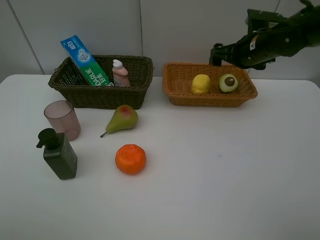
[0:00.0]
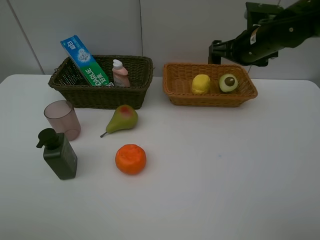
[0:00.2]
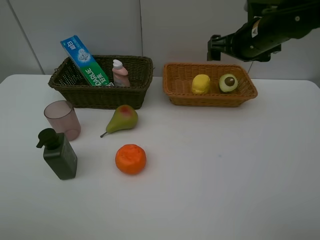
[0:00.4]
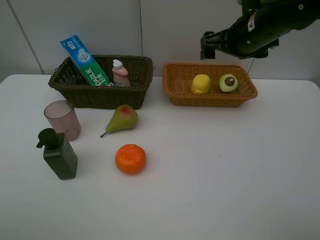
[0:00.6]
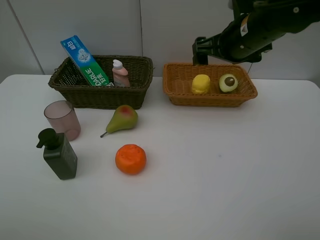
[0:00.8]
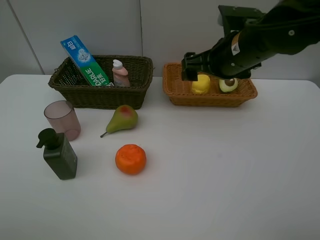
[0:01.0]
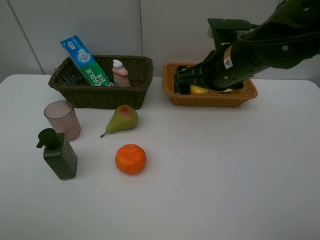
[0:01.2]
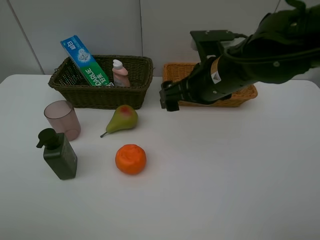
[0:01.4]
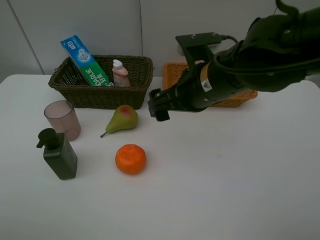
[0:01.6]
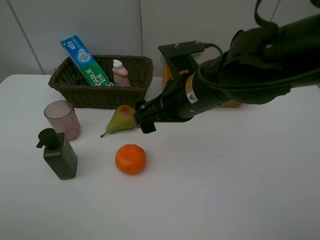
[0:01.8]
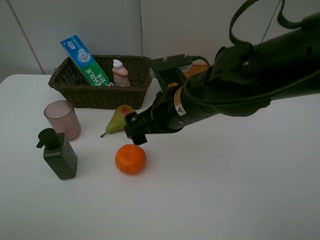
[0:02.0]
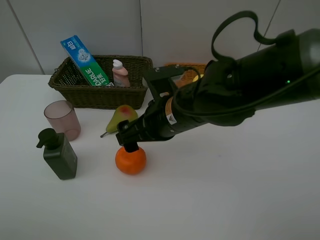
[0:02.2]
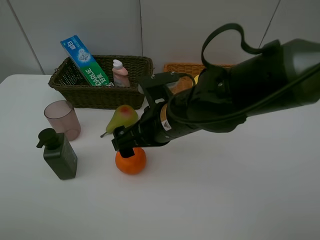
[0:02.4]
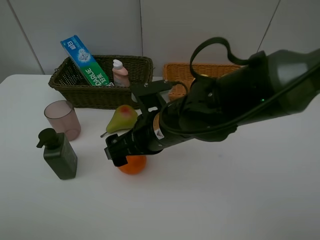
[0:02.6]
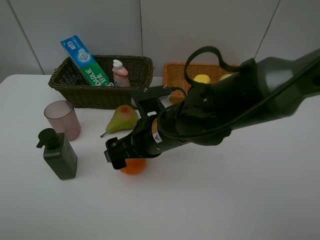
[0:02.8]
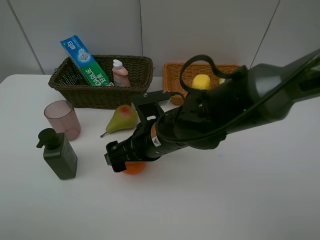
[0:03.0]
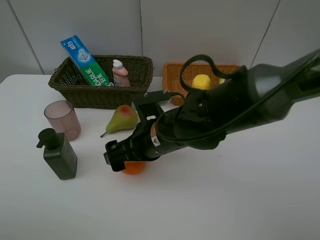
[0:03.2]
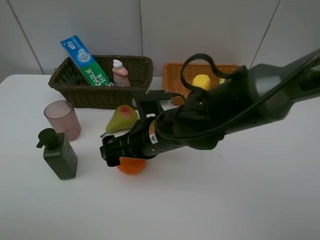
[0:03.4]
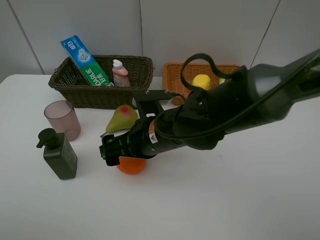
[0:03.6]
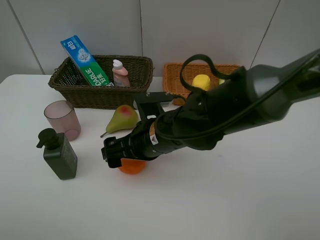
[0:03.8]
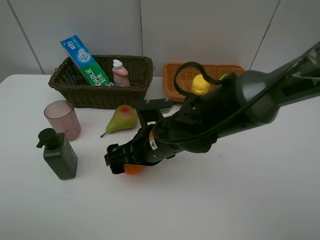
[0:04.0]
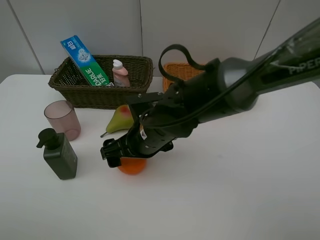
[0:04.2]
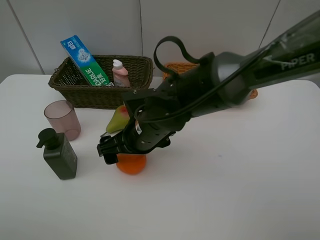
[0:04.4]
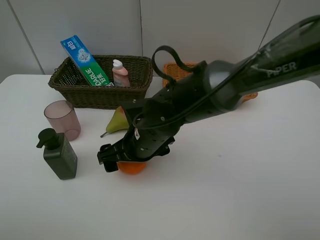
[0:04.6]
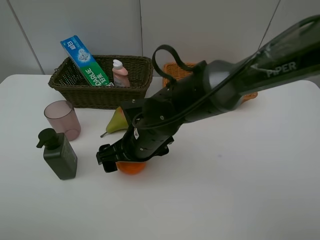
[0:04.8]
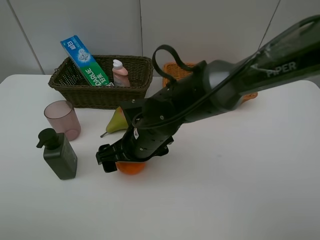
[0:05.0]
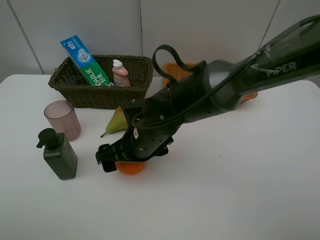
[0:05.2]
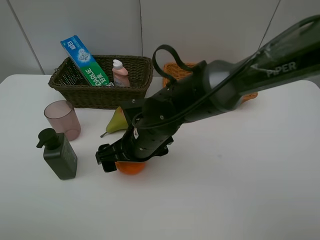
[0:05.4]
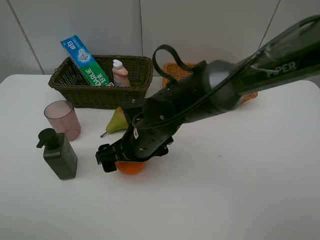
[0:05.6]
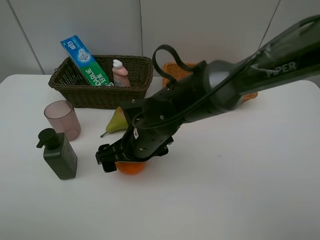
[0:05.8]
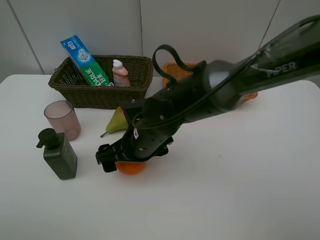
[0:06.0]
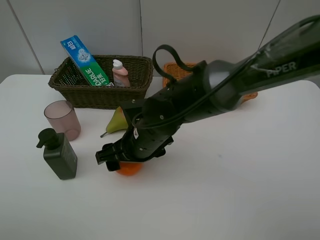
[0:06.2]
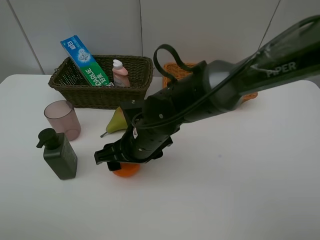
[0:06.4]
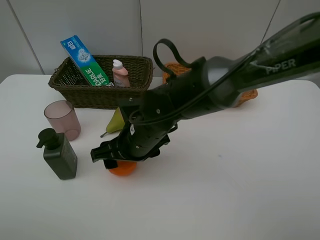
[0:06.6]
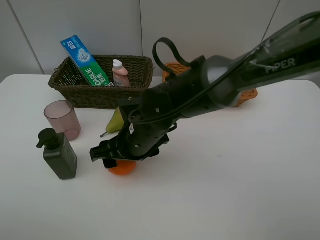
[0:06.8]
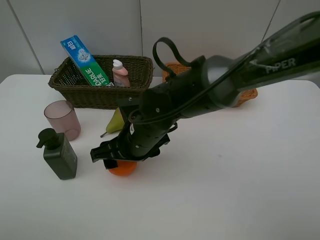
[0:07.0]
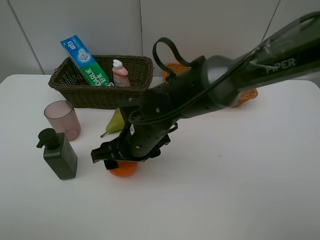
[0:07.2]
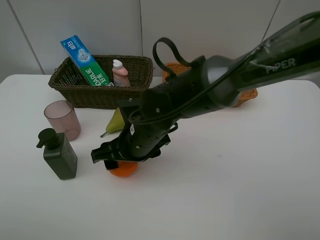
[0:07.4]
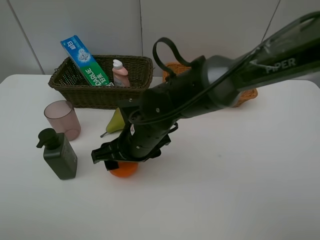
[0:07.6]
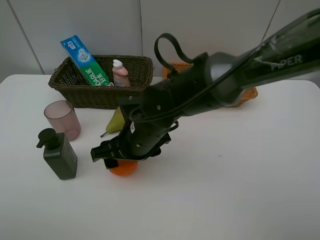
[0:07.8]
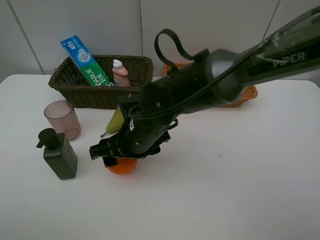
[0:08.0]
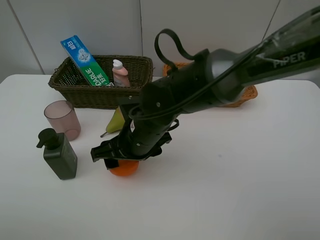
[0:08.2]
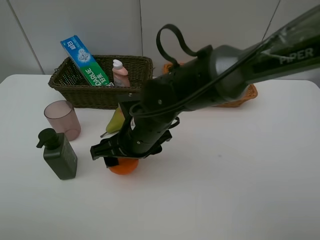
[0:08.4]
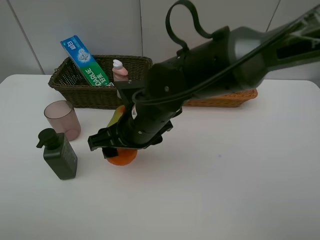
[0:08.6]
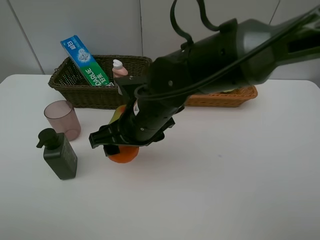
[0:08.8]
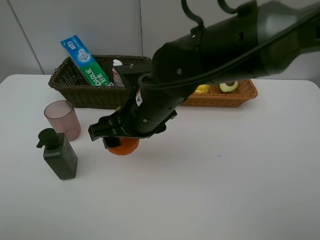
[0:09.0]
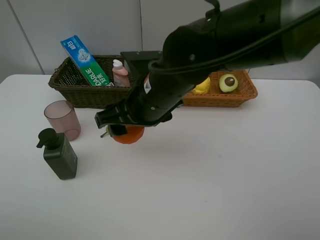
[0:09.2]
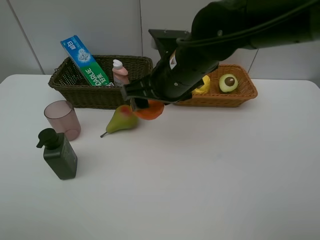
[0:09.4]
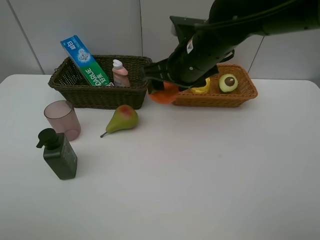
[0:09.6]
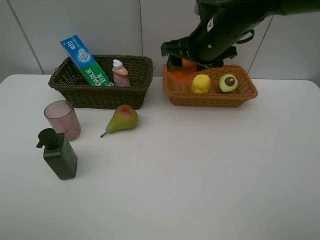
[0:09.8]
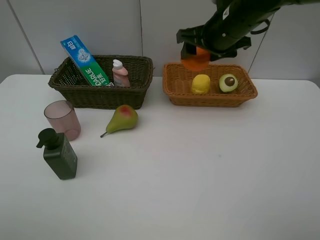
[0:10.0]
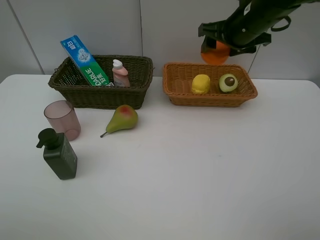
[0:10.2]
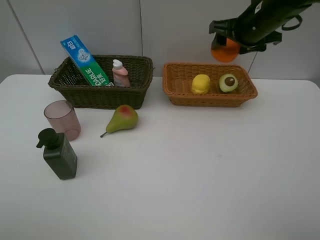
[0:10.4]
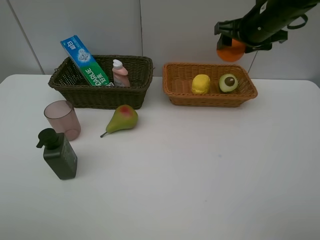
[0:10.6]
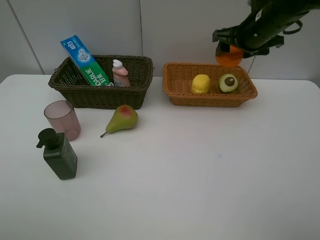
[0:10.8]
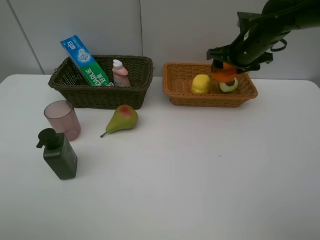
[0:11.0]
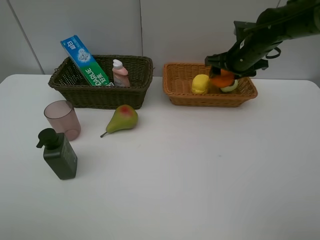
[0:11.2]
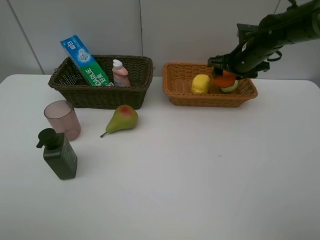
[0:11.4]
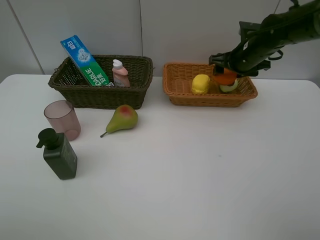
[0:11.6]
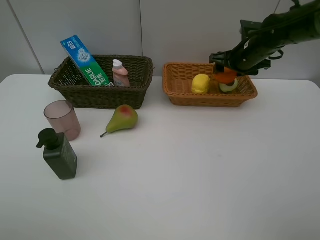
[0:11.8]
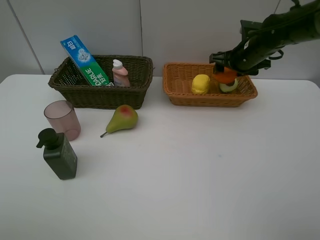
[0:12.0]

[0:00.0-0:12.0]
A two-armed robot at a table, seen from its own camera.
Task of the whole recording: Place multiple objects separately in different baskets.
Step, 0:00.0 to 0:08.4: Pick up the orange with right gripper.
0:00.0 to 0:01.6: The right gripper shifts roughly 20 cm backward and to the left.
0:01.6 to 0:03.0: The right gripper heads downward and to the left, covering approximately 10 cm.
0:03.0 to 0:06.0: There are only small adjustments of the grippers.
0:06.0 to 0:07.6: The right gripper closes.
0:07.6 to 0:09.0: The right gripper goes about 5 cm upward.
0:09.0 to 0:10.4: The right gripper moves to the right and forward, about 25 cm.
0:10.4 to 0:12.0: The right gripper moves downward, about 10 cm.

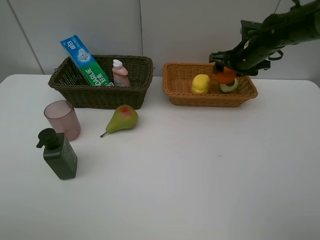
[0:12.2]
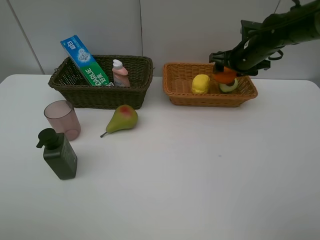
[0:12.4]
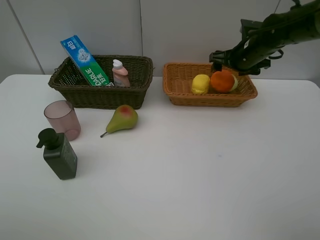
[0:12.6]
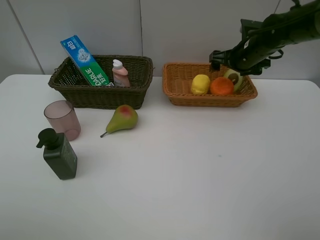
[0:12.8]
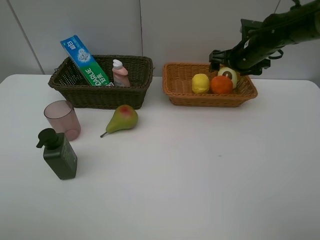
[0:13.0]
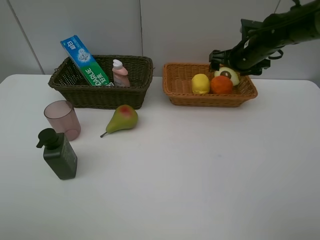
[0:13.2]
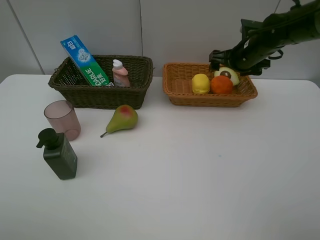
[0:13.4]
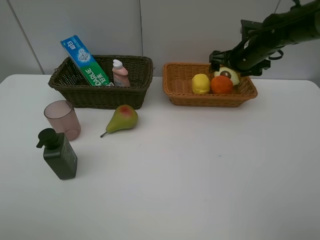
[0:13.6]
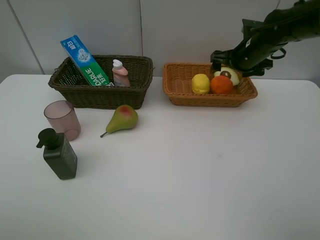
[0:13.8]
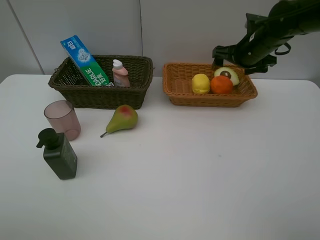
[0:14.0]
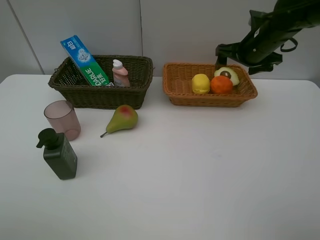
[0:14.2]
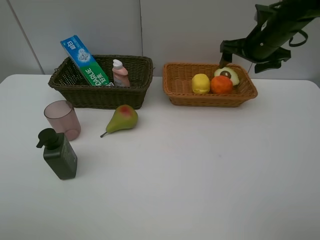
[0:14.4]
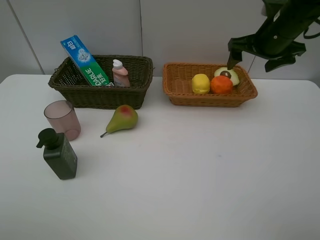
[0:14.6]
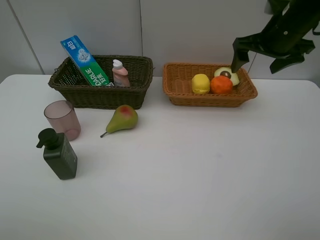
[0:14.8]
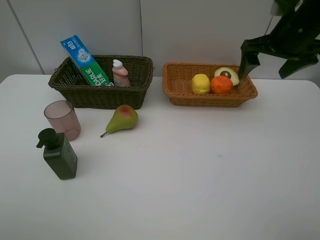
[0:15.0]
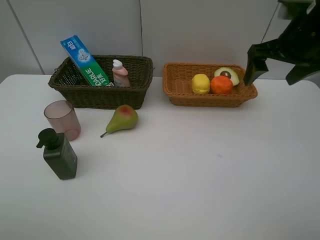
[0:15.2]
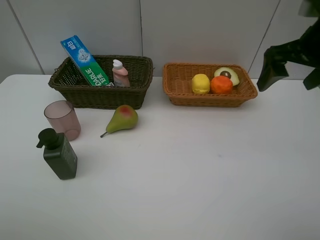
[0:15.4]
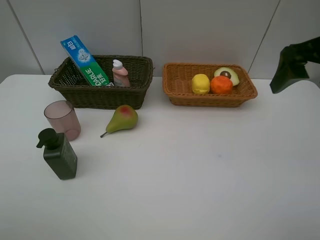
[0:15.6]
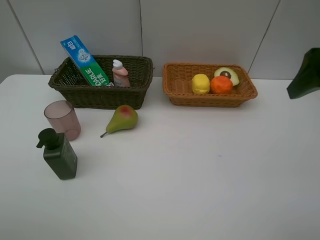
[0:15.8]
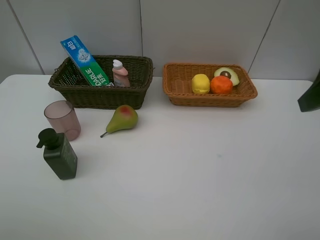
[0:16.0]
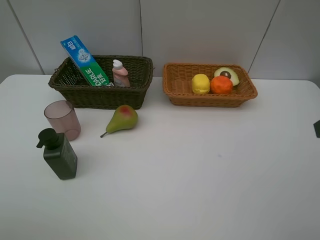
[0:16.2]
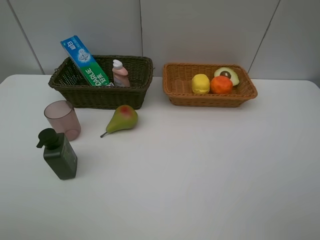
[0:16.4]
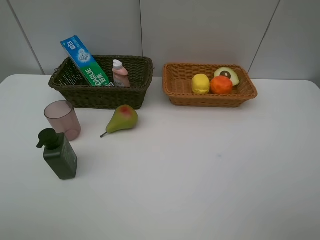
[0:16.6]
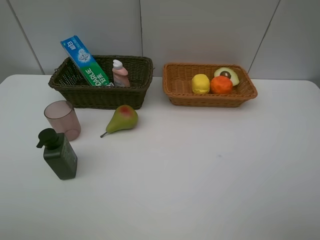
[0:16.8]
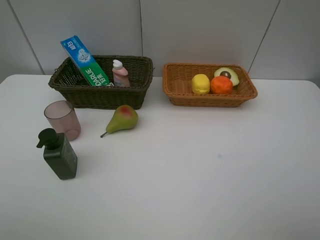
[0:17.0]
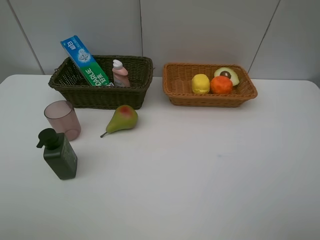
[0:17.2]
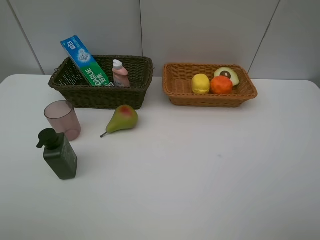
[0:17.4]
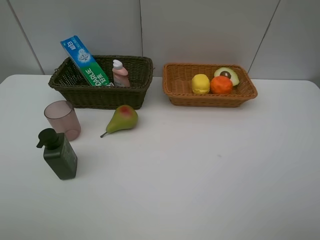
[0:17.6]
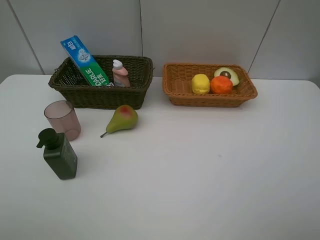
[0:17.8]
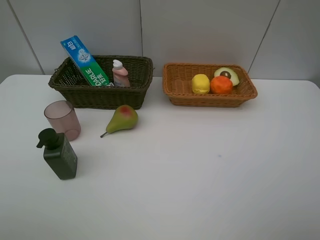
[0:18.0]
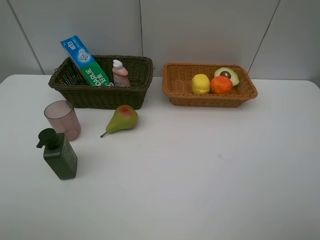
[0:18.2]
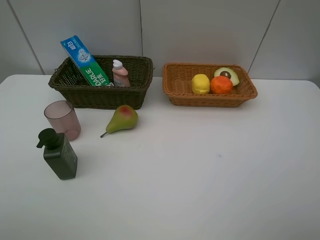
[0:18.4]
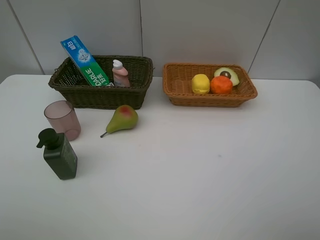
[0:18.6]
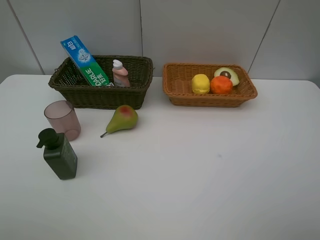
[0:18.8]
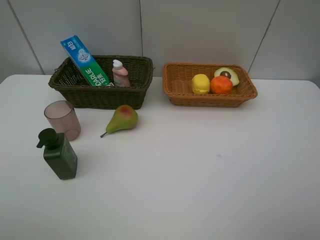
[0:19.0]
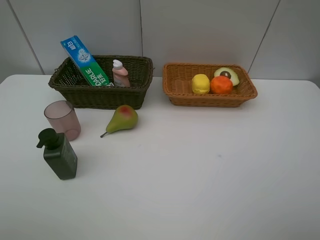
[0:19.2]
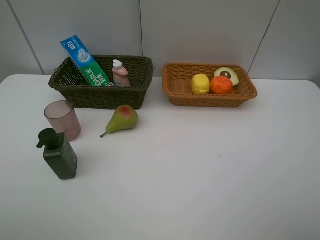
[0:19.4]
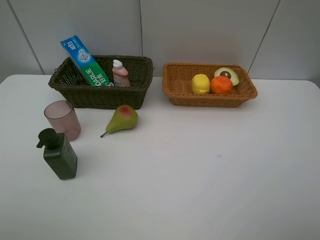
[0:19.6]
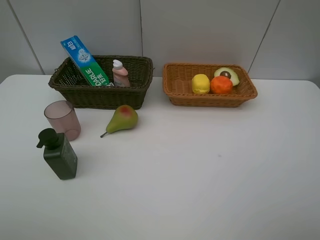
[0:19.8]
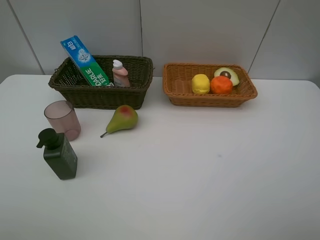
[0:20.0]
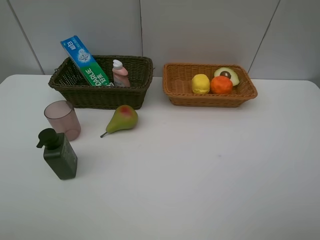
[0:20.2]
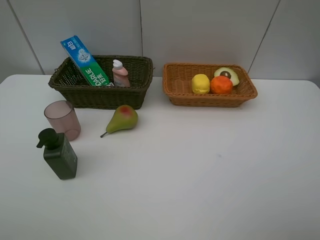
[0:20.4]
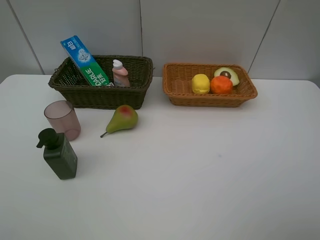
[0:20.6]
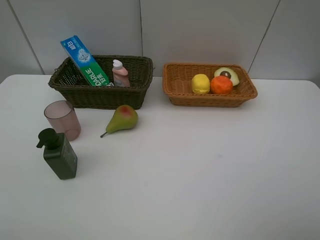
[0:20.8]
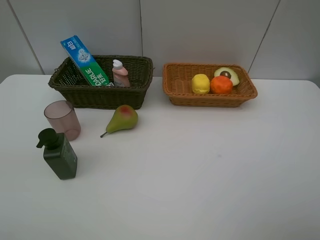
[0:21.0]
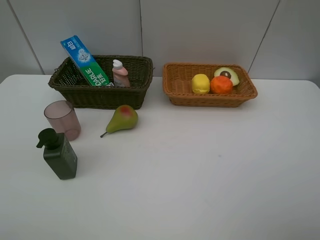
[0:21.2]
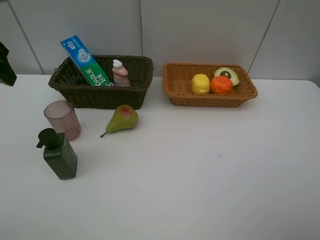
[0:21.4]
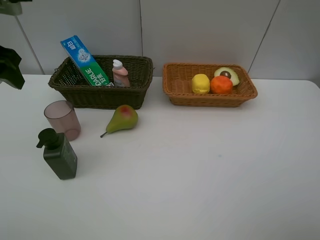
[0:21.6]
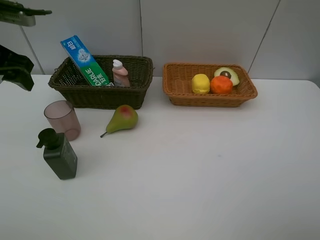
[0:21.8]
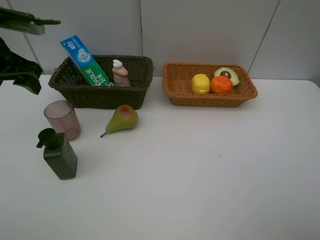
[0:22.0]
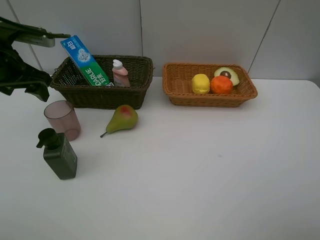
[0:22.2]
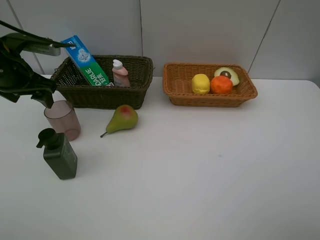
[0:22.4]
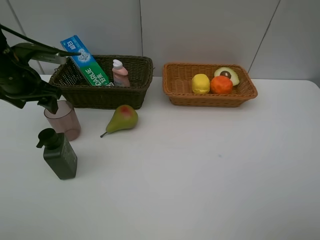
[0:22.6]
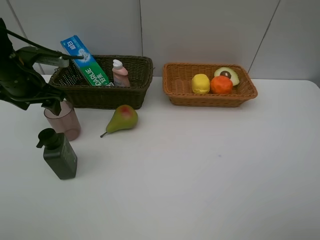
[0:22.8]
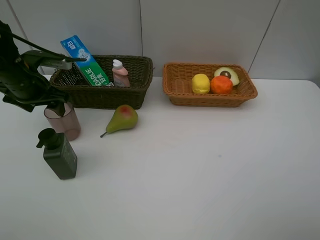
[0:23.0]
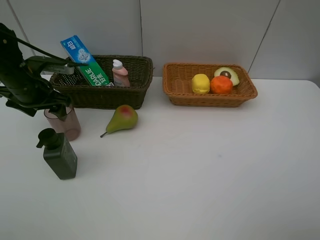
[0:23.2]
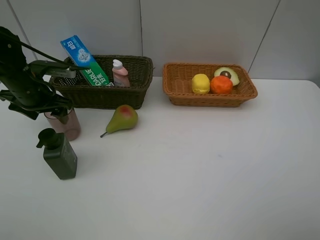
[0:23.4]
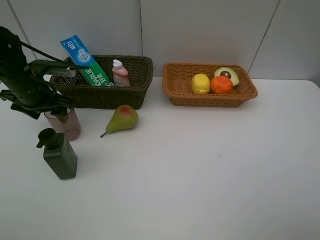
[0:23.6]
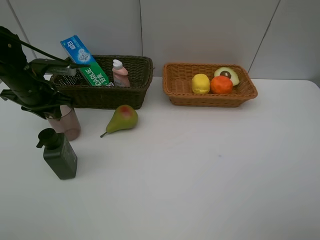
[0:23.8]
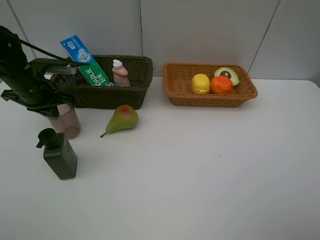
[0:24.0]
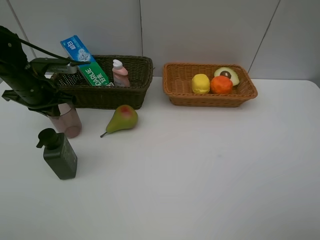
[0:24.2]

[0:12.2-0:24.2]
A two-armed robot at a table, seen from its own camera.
Task of the whole recording: Place multiple objects separately in different baskets.
0:12.2 to 0:13.8: The right gripper opens up.
0:13.8 to 0:15.2: The right gripper is displaced backward and upward by about 15 cm.
0:15.2 to 0:16.6: The right gripper travels backward by roughly 25 cm.
0:18.2 to 0:19.8: Both grippers stay put.
0:21.2 to 0:22.6: The left gripper moves downward and forward, about 20 cm.
0:22.6 to 0:24.2: The left gripper closes its fingers.
